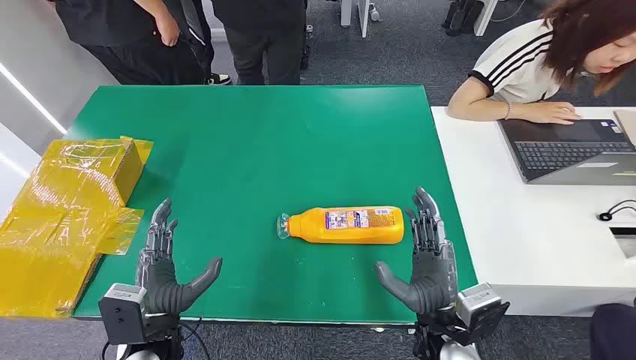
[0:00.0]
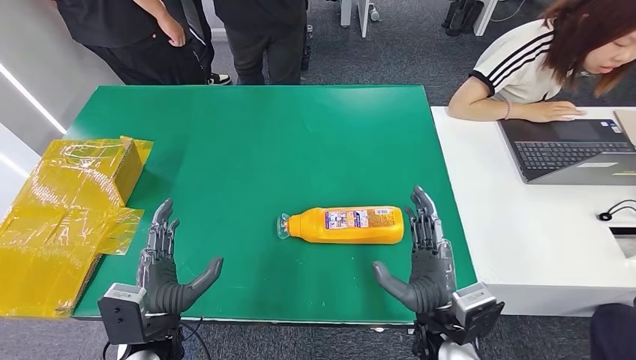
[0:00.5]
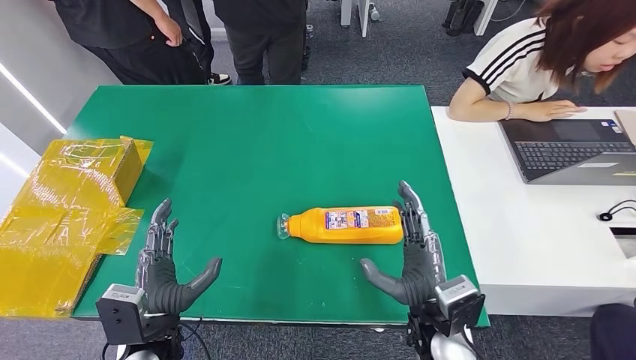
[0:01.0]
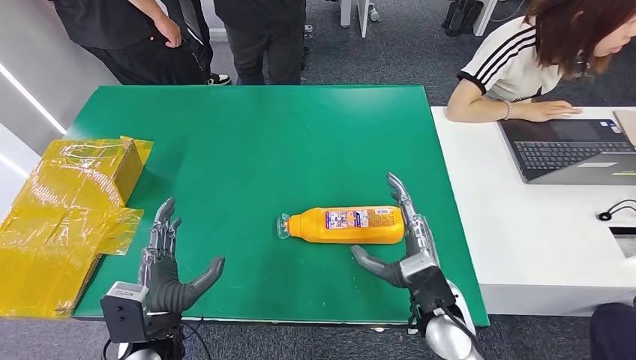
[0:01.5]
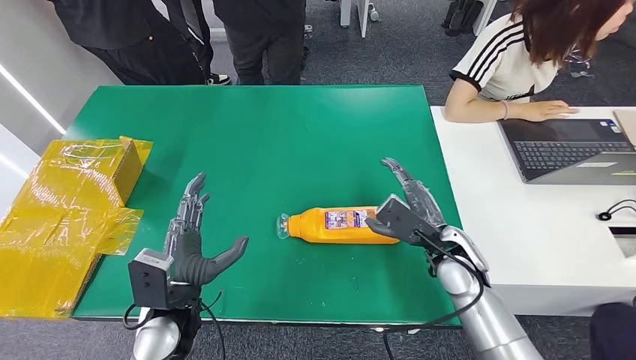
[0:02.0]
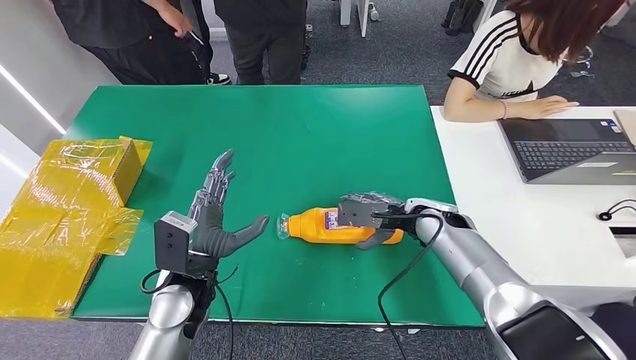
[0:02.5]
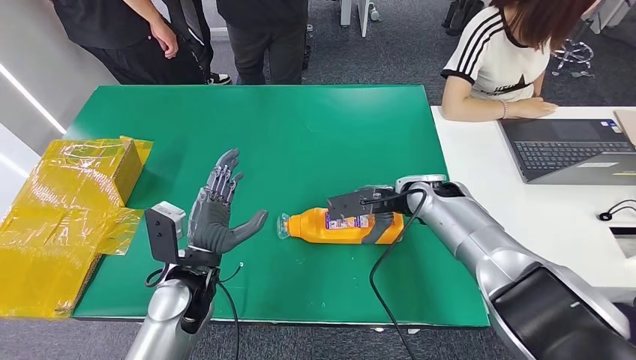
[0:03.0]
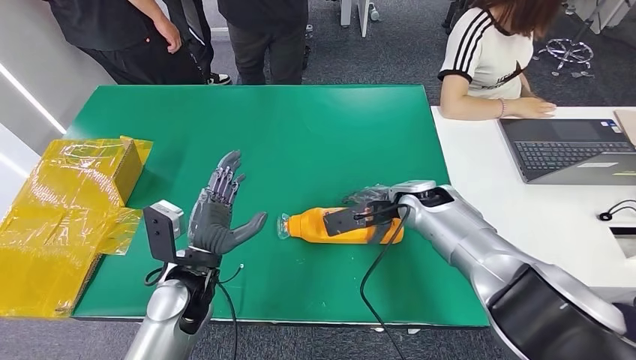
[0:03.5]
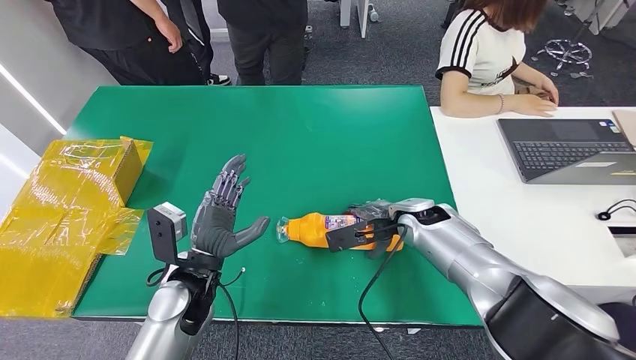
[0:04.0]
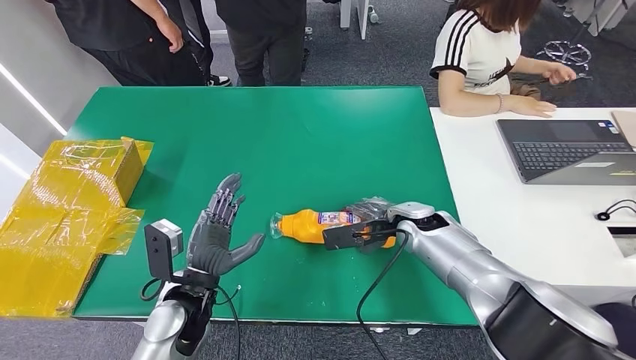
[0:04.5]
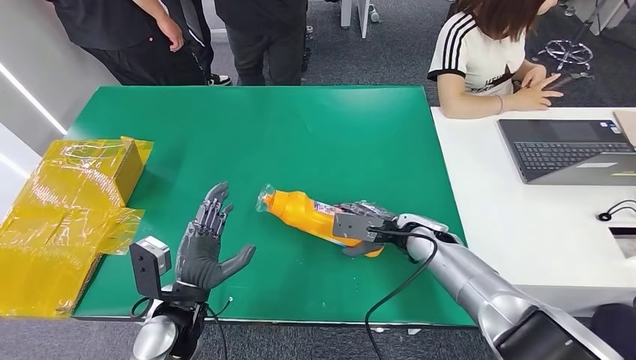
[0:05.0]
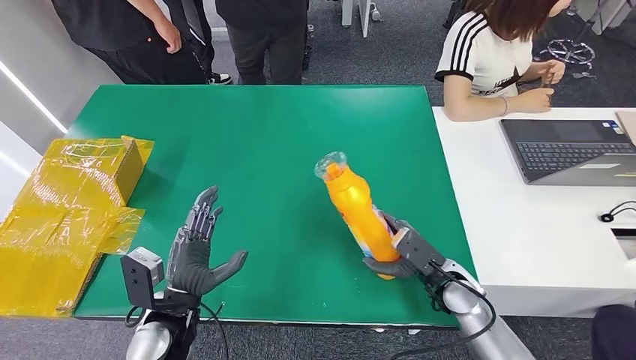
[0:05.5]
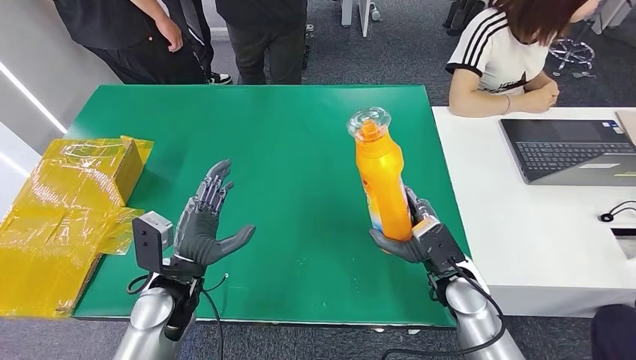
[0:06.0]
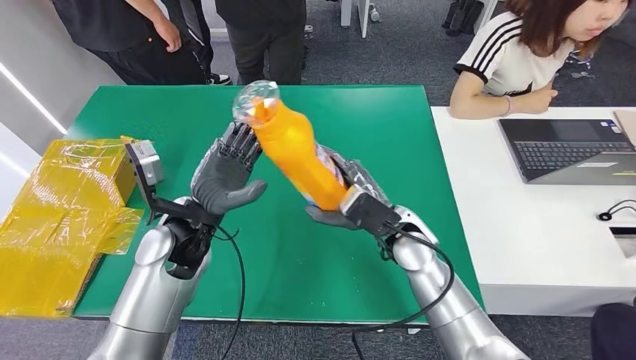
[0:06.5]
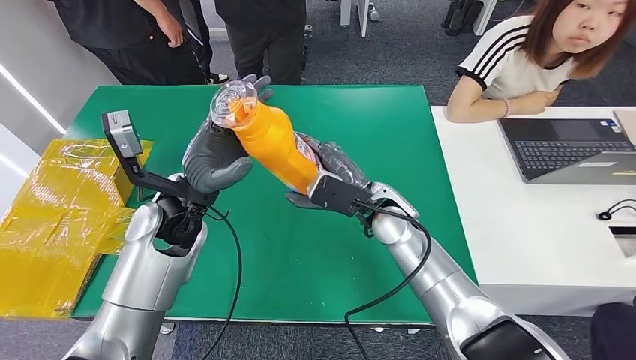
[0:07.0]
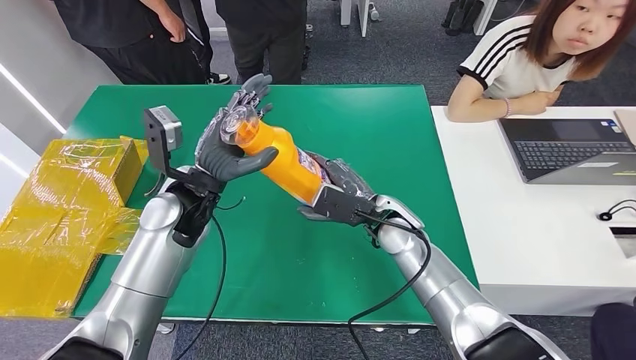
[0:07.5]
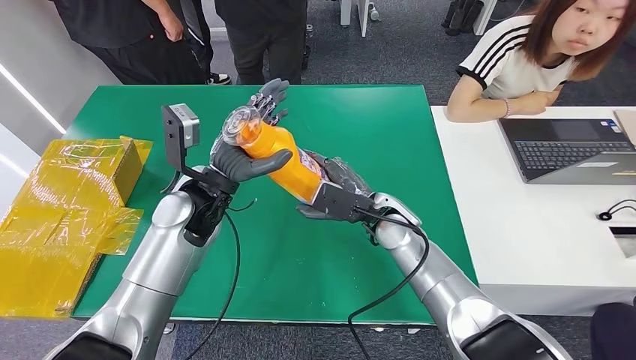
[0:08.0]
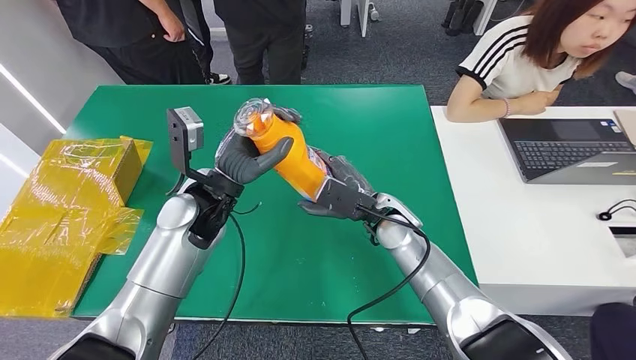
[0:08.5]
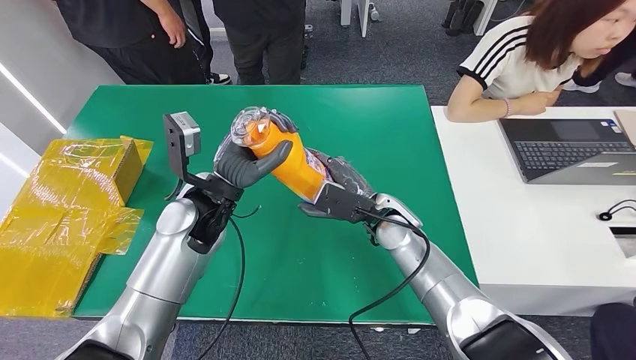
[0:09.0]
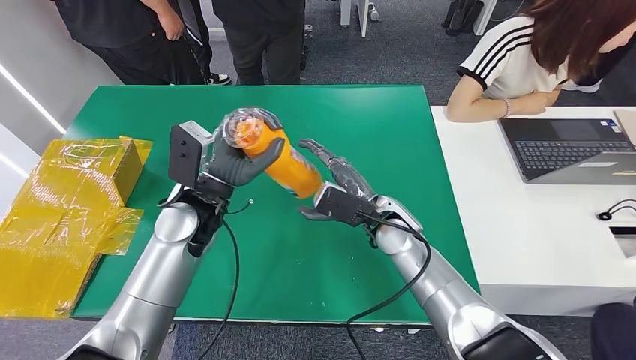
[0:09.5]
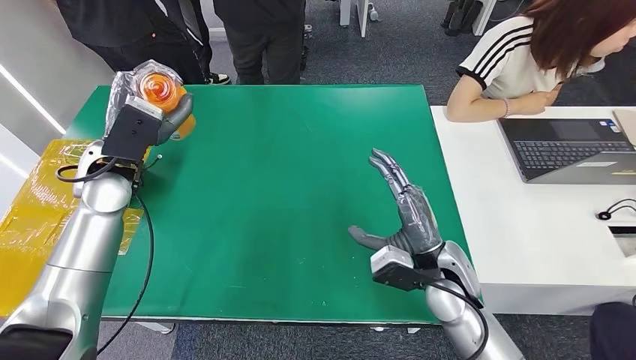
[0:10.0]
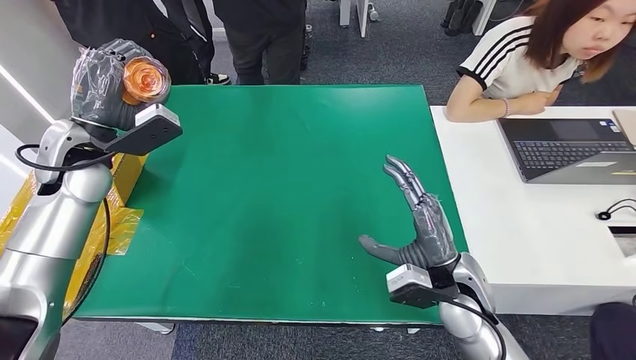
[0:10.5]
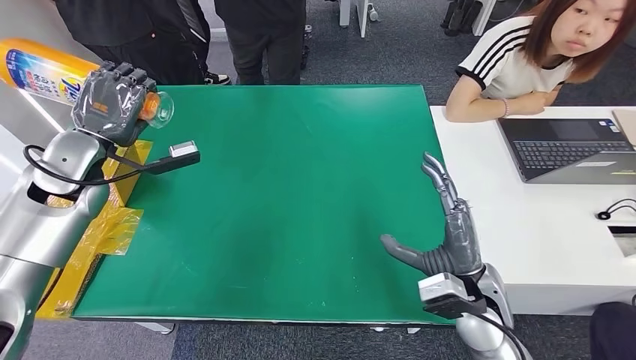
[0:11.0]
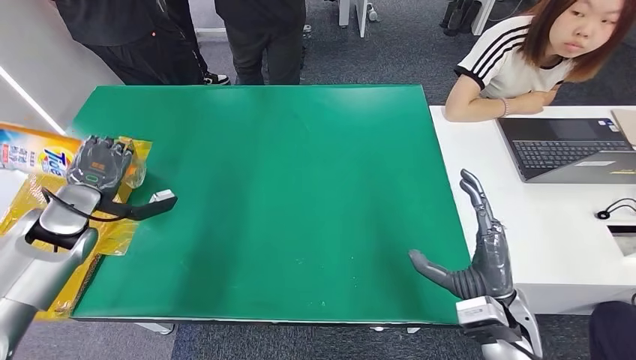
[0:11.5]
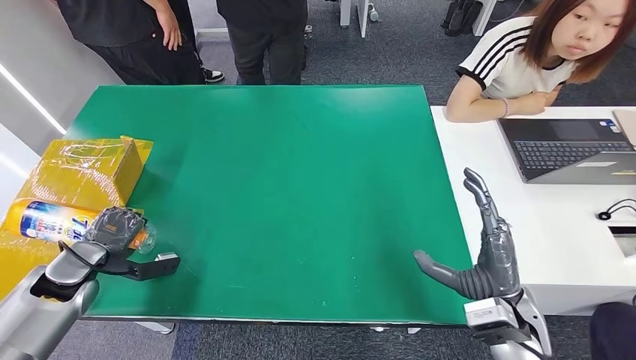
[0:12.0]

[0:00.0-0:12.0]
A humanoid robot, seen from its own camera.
Step, 0:00.0 to 0:05.5: Pick up the bottle from the table.
0:02.0 to 0:04.0: The left hand shifts by some 5 cm. Meanwhile the right hand is displaced forward by some 10 cm.

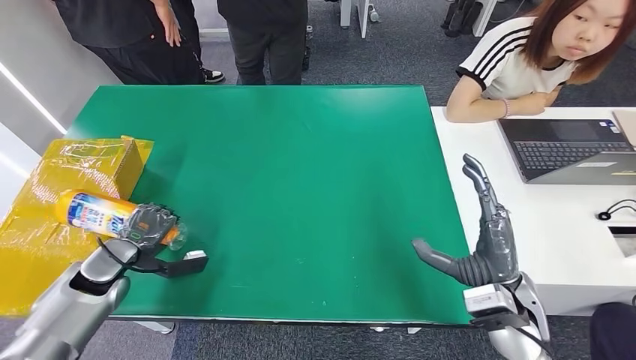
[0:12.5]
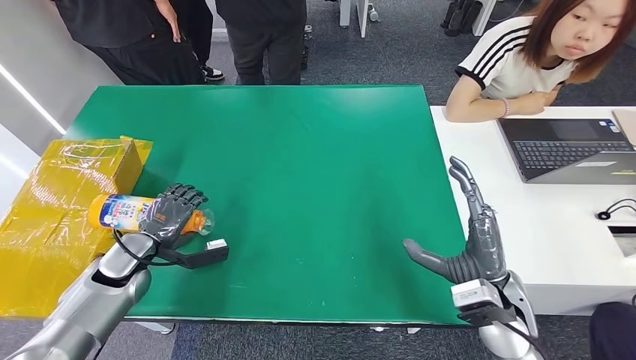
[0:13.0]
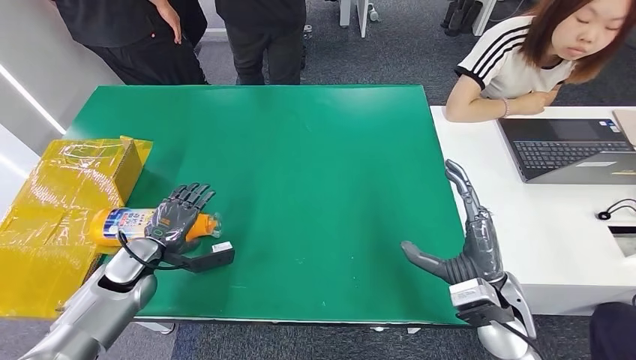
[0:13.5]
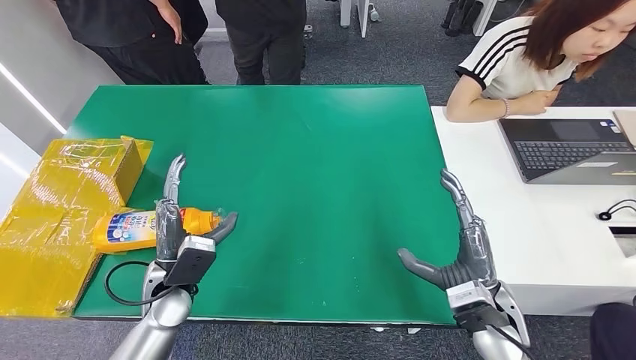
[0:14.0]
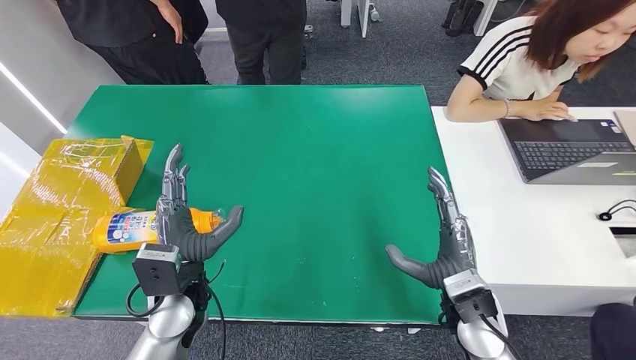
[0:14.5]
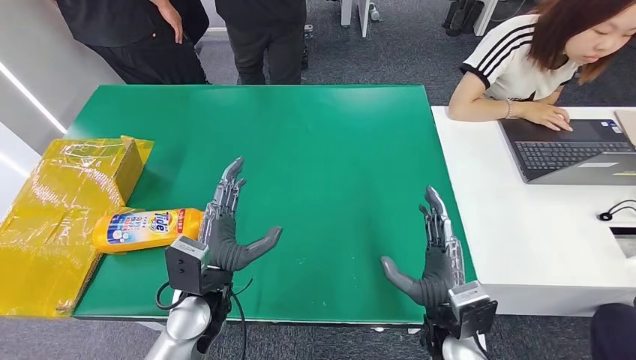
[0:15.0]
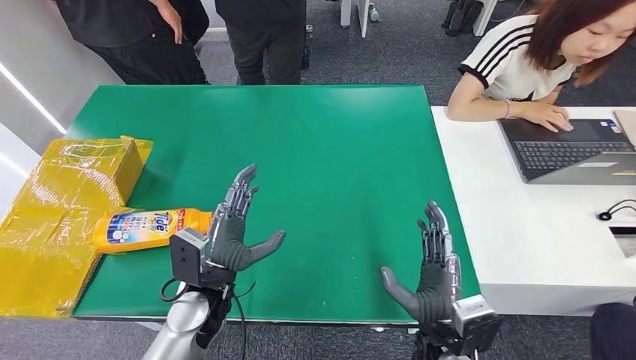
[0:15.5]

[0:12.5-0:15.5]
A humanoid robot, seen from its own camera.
Step, 0:12.5 to 0:15.5: Turn the bottle to the front side.
0:12.5 to 0:14.0: The left hand travels to the right by some 15 cm.
0:14.0 to 0:15.5: The right hand heads to the left, covering roughly 10 cm; the left hand is displaced to the right by approximately 5 cm.
